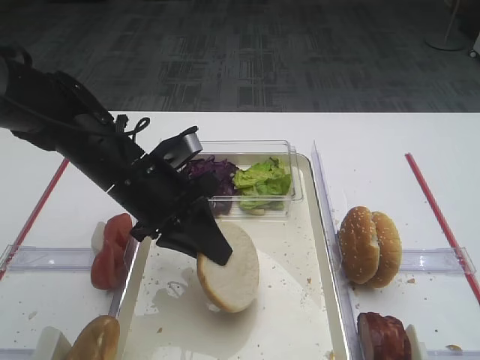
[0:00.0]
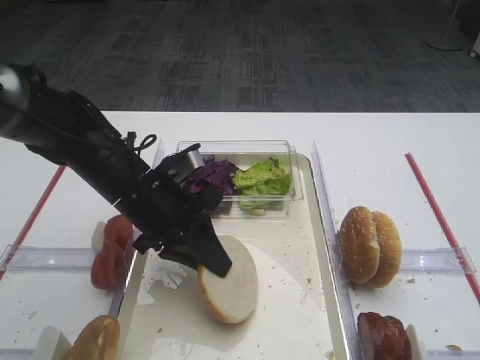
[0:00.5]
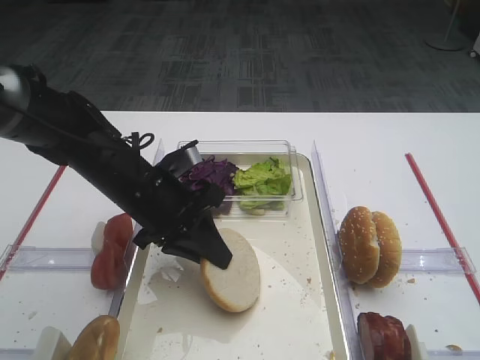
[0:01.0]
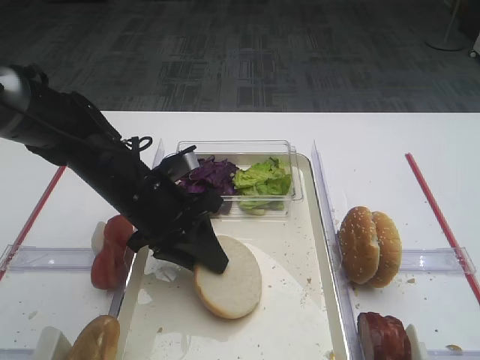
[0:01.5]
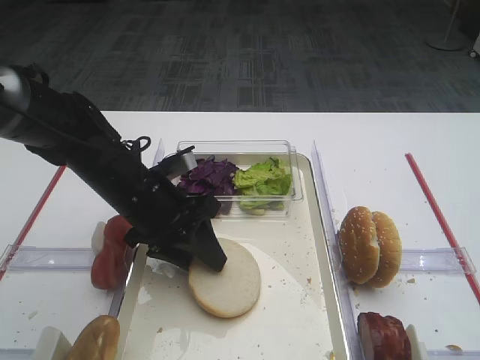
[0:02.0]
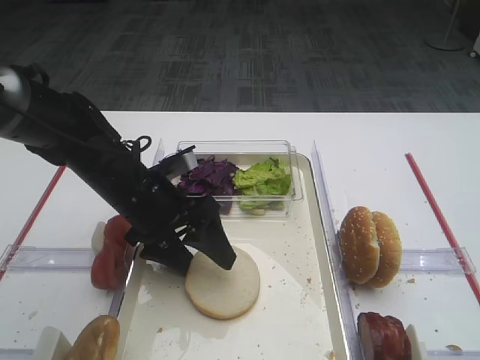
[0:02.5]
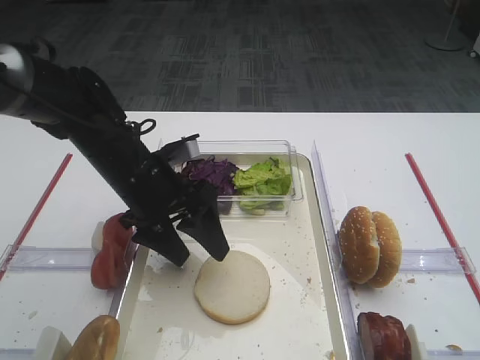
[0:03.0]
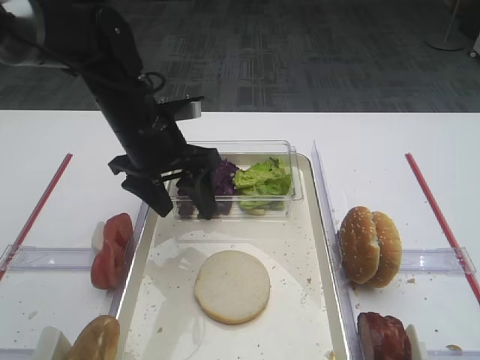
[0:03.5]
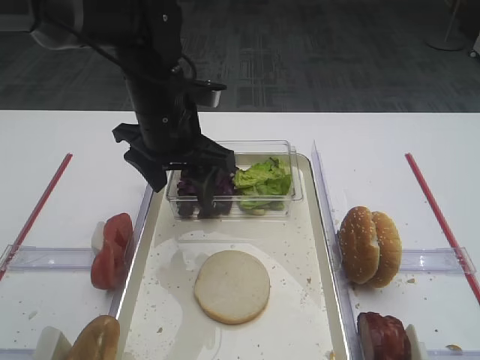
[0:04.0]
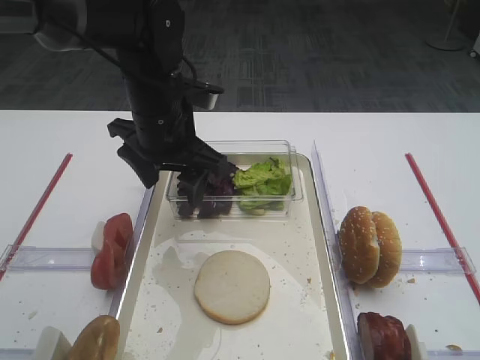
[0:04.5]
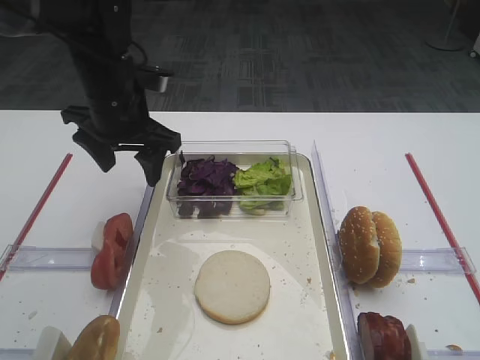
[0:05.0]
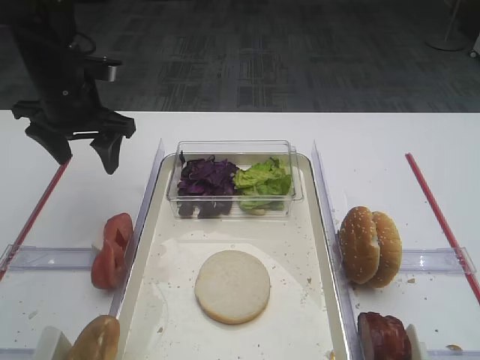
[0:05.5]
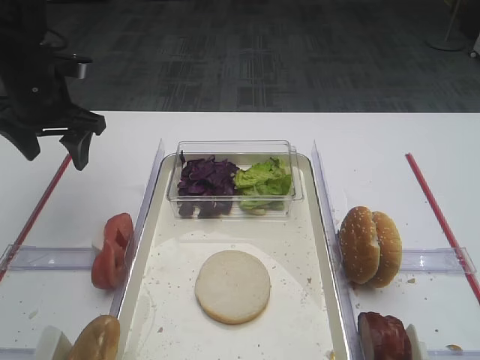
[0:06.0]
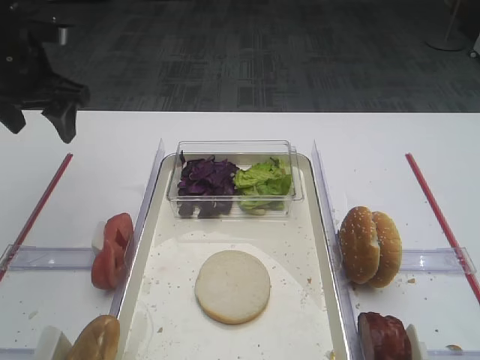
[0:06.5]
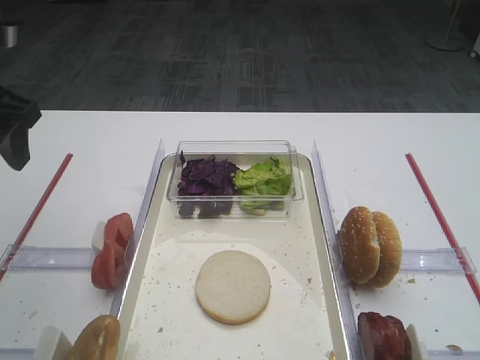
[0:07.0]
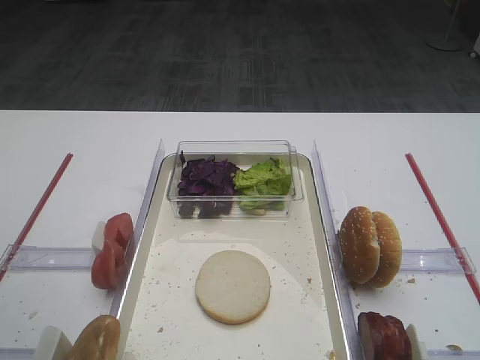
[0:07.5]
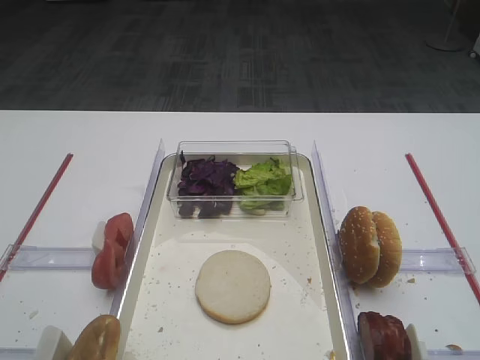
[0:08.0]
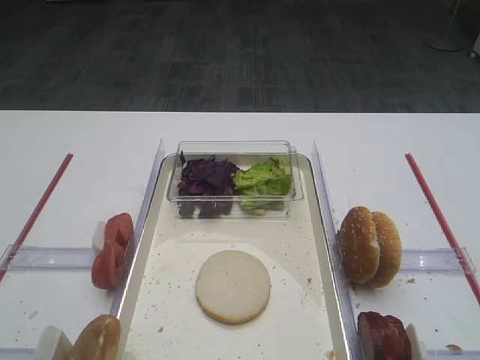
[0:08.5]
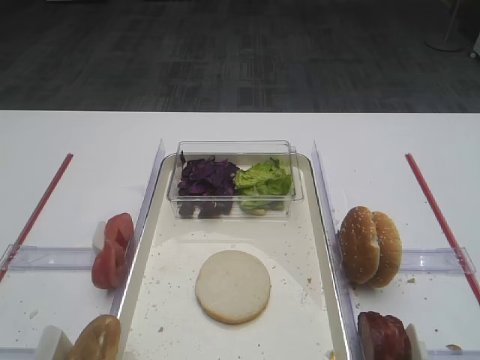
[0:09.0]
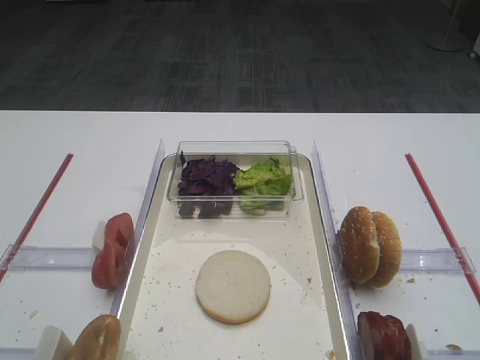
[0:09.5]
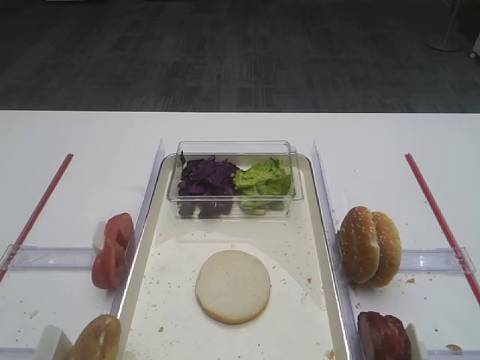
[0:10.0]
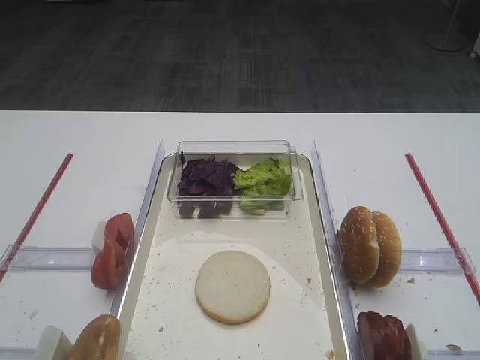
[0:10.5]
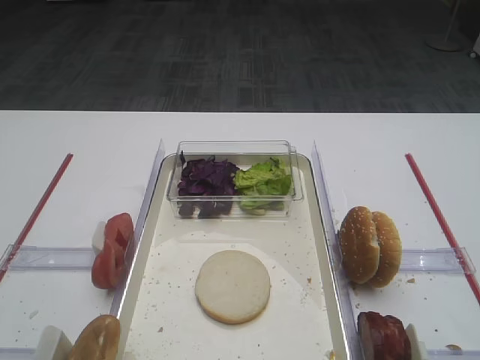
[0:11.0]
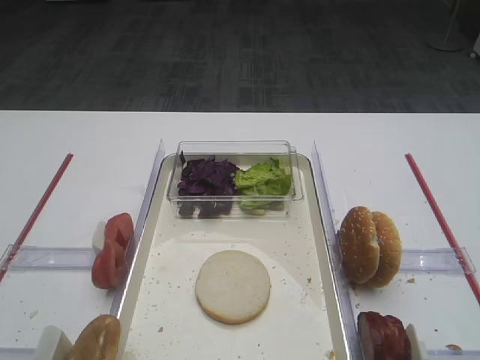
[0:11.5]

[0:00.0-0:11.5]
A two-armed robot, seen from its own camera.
Step, 0:00.0 to 0:03.0: Place the bread slice on the tray with the left gripper.
0:00.0 to 0:02.0: The left gripper opens its fingers.
0:02.0 to 0:04.0: The left gripper goes some 10 cm upward, and opens its fingers.
0:04.0 to 0:06.0: The left gripper moves to the left, some 15 cm.
0:06.0 to 0:07.5: The left gripper moves backward, roughly 20 cm.
0:09.5 to 0:11.5: The two grippers keep their place.

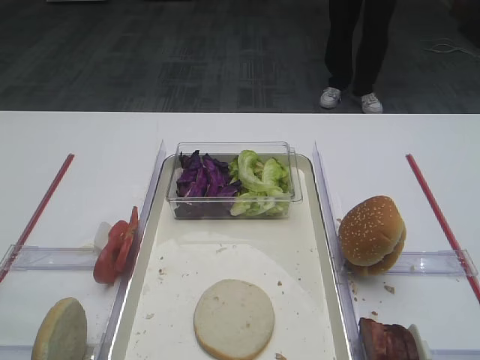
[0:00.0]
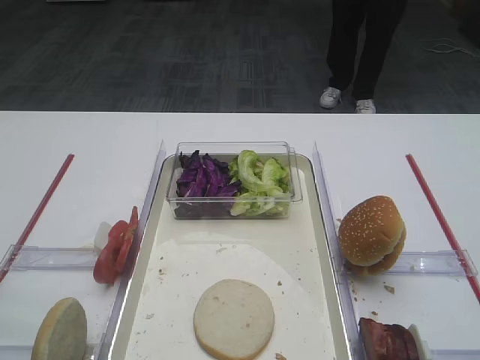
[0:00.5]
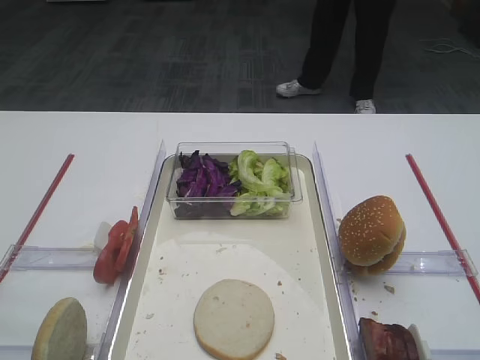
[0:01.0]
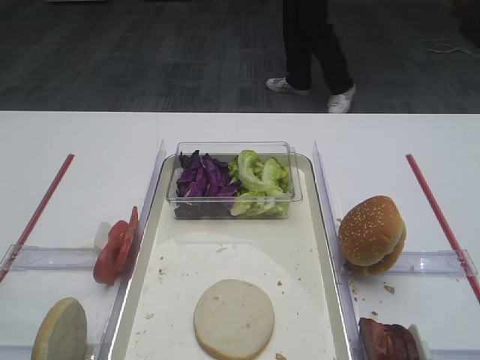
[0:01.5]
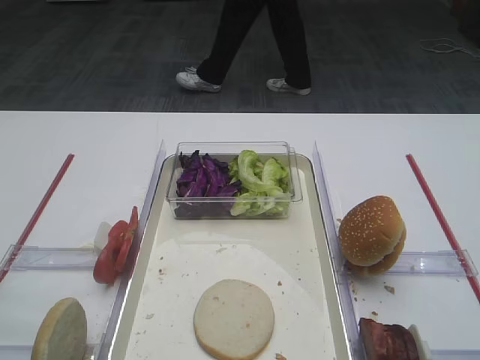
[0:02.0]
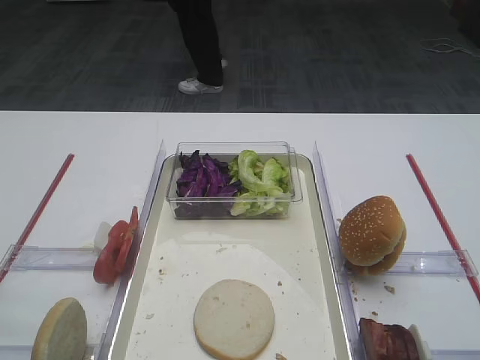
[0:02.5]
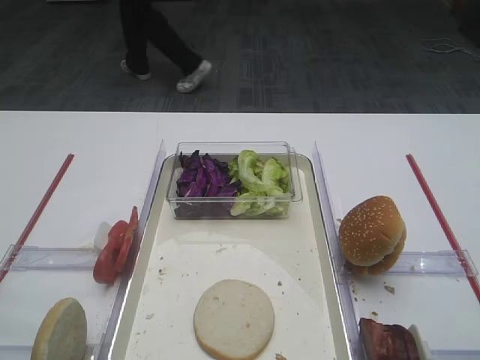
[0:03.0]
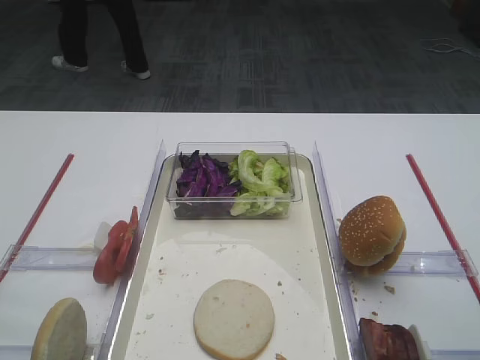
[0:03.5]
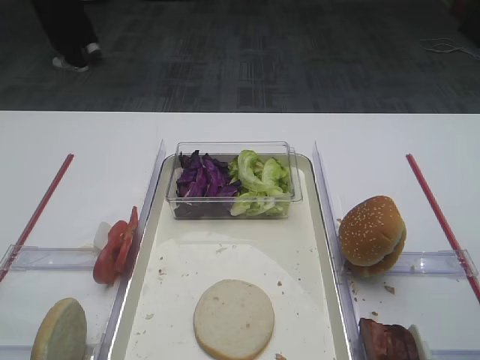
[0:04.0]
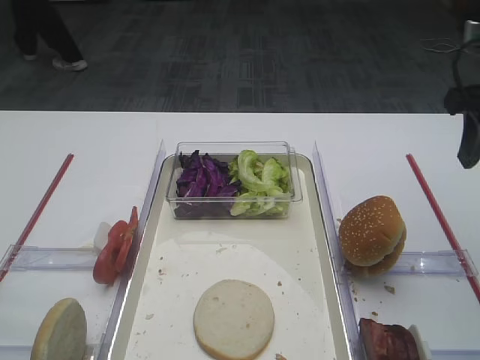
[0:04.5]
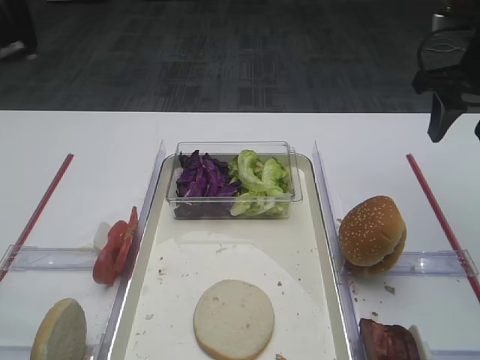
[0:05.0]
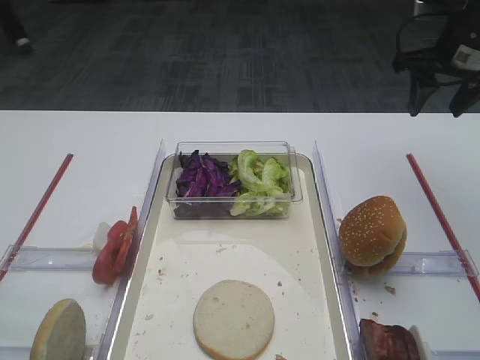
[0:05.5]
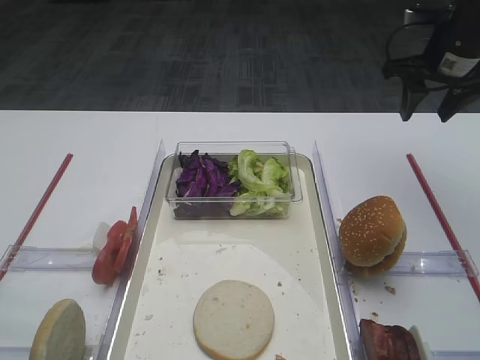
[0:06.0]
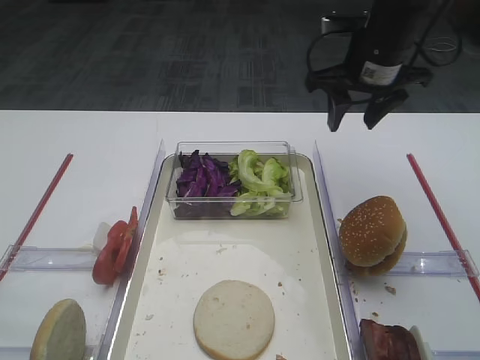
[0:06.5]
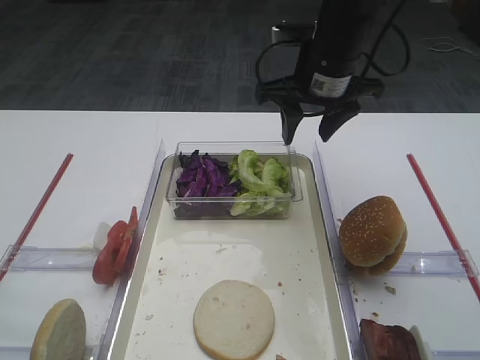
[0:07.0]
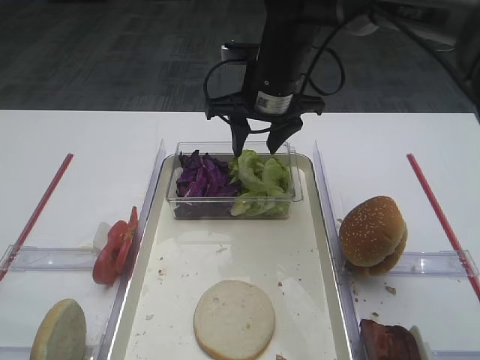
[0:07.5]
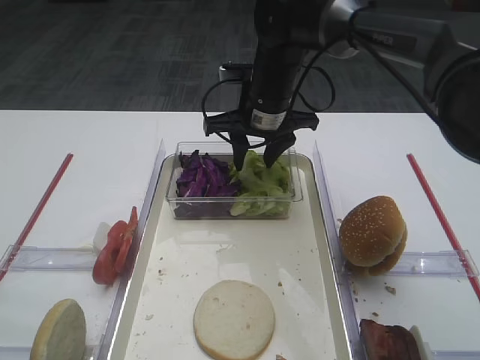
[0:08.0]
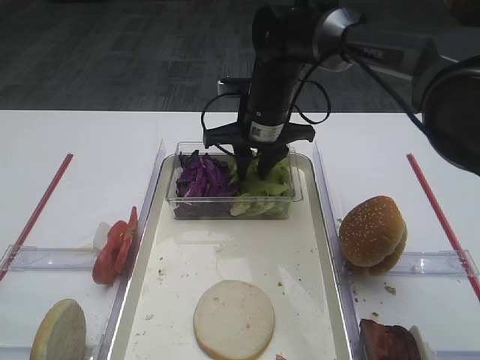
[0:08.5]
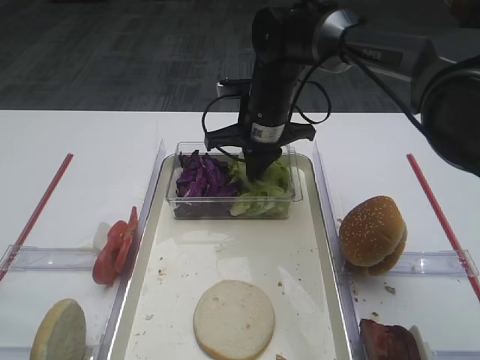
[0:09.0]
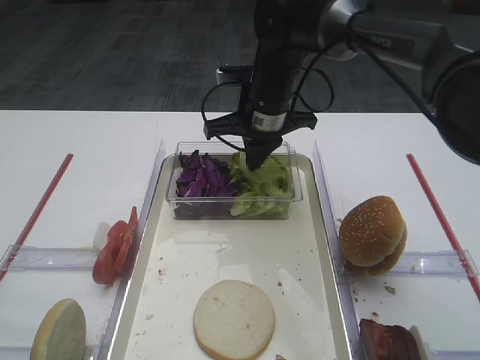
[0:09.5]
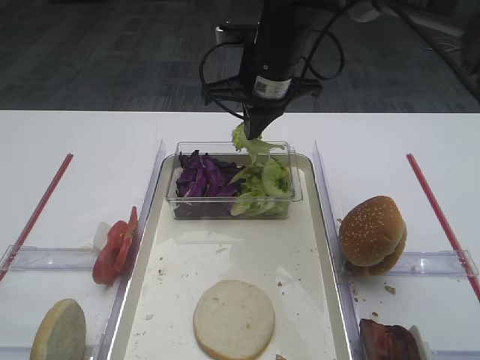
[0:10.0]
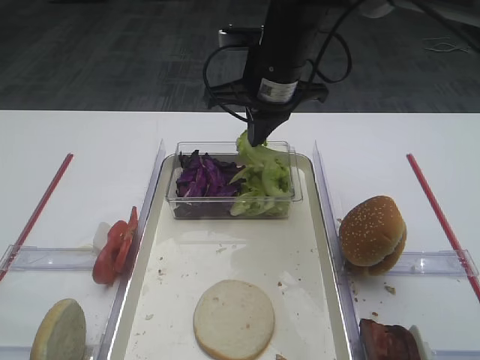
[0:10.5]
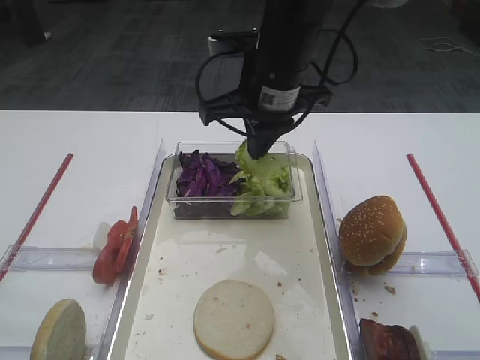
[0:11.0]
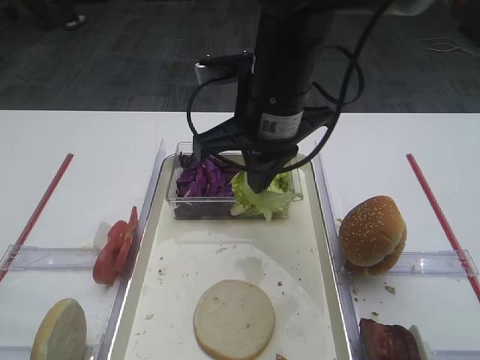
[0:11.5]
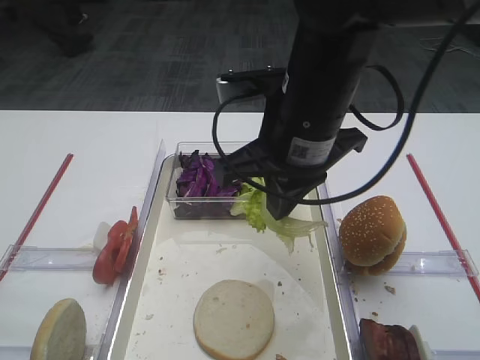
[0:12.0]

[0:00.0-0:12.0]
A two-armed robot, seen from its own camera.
Step, 0:00.0 to 0:11.0: Pick up the lettuce leaf with the right gripper.
0:02.0 to 0:04.0: The right gripper moves forward, some 15 cm.
0:04.0 to 0:06.0: The right gripper travels forward by approximately 25 cm.
0:06.0 to 0:08.0: The right gripper goes roughly 25 cm to the left.
0:08.0 to 0:10.0: The right gripper closes its fingers.
0:10.0 to 0:12.0: The right gripper goes some 15 cm backward.

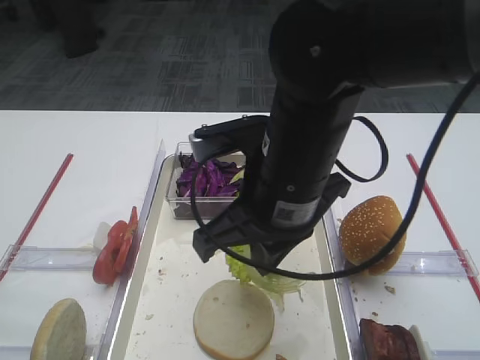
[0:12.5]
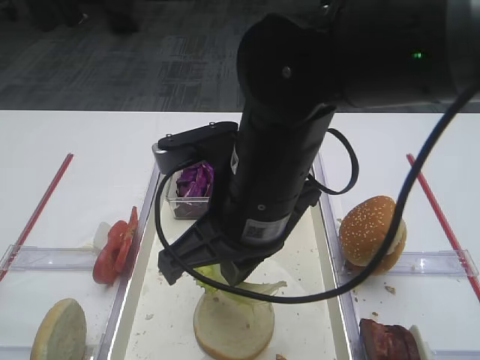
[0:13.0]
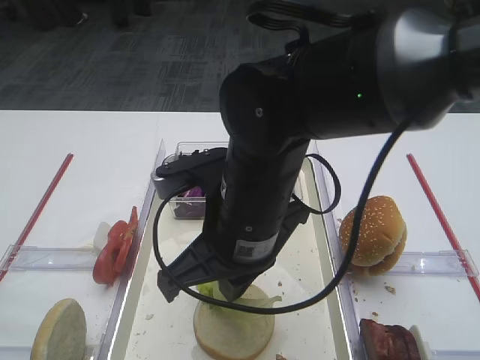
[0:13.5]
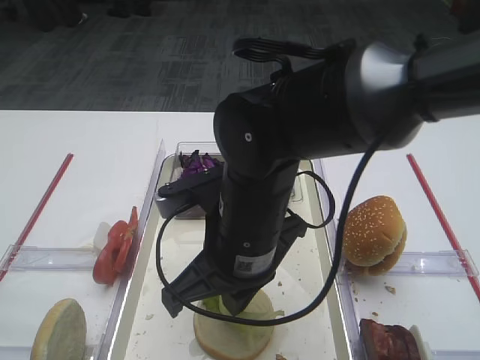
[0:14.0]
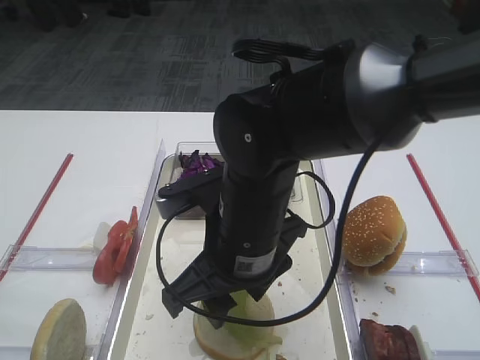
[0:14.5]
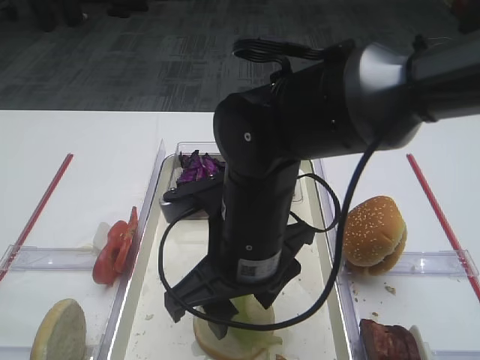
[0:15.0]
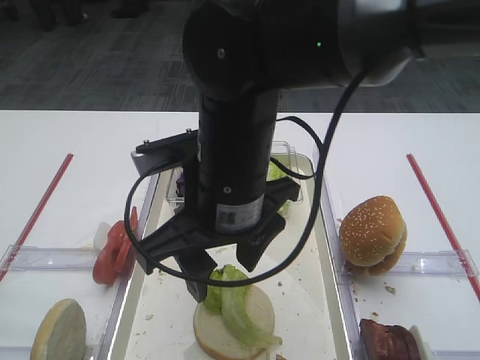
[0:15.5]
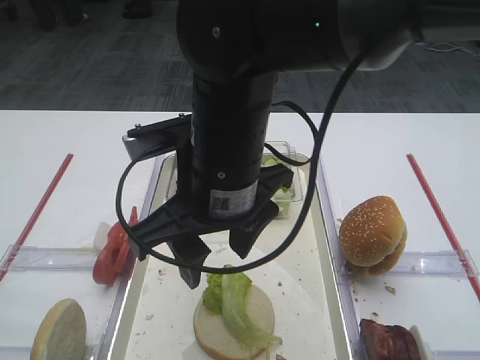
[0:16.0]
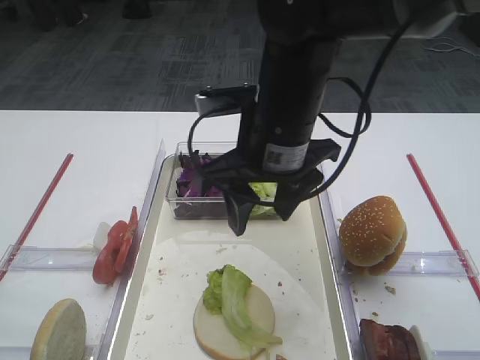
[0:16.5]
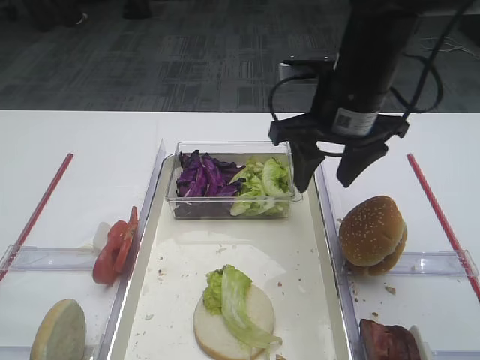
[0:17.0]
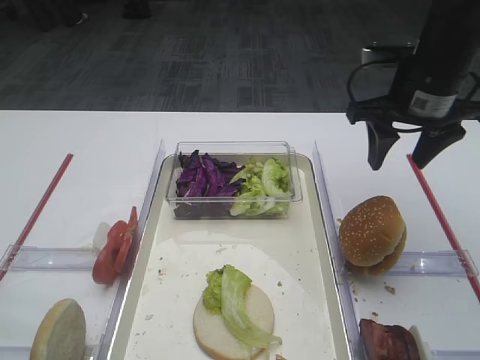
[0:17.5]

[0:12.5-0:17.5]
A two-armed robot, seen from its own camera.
Step, 0:12.5 to 0:15.5: Place the lettuce leaf on the bread slice with the right gripper.
0:12.5 to 0:15.0: The right gripper goes approximately 5 cm downward, and opens up.
0:15.0 to 0:17.5: The right gripper goes roughly 25 cm to the right and forward.
